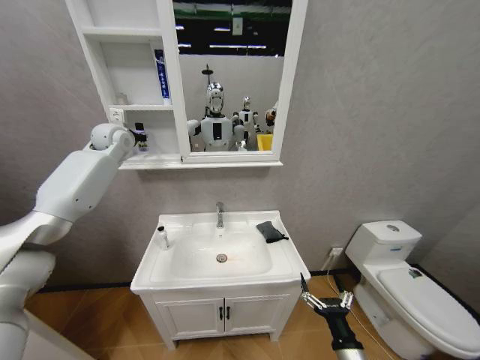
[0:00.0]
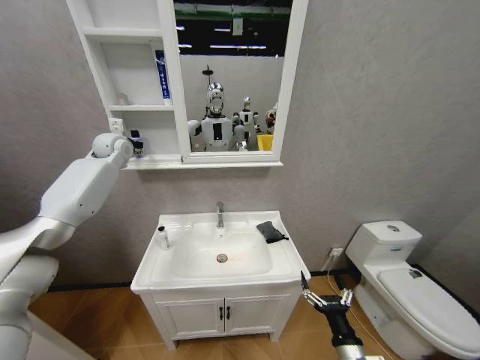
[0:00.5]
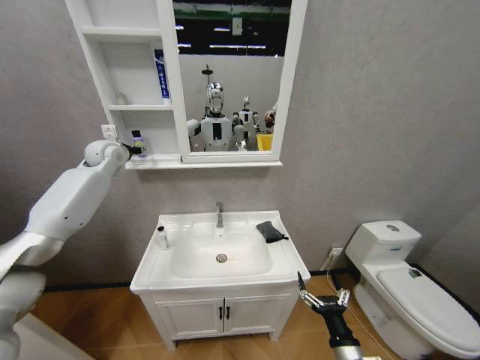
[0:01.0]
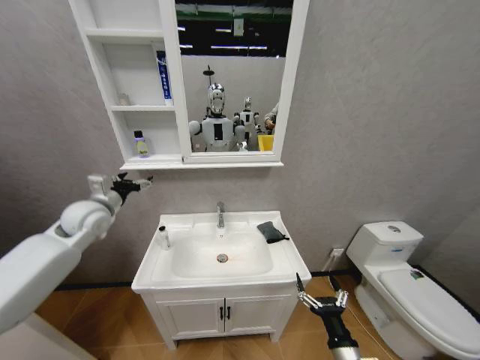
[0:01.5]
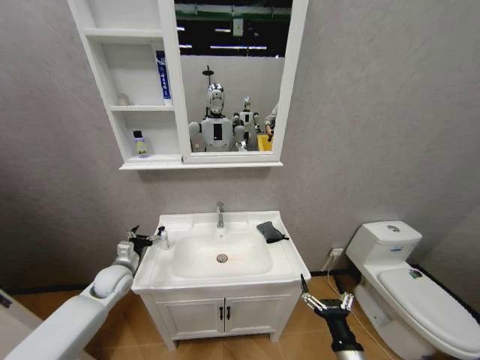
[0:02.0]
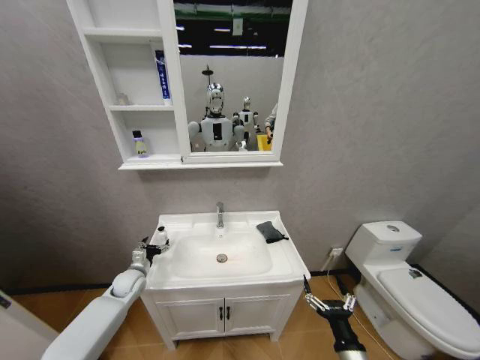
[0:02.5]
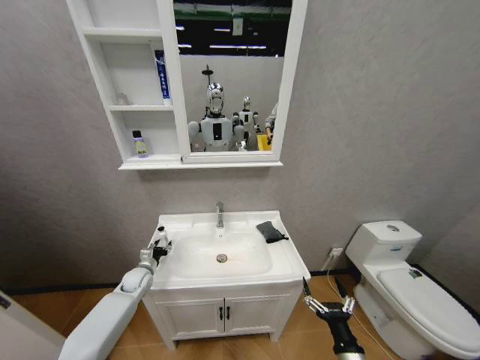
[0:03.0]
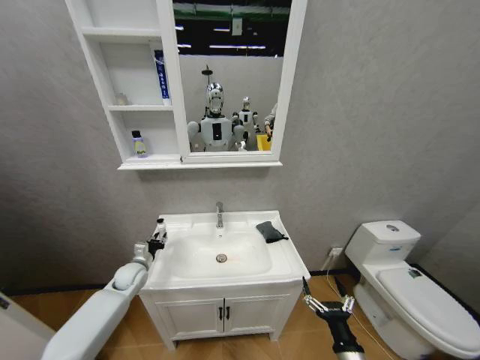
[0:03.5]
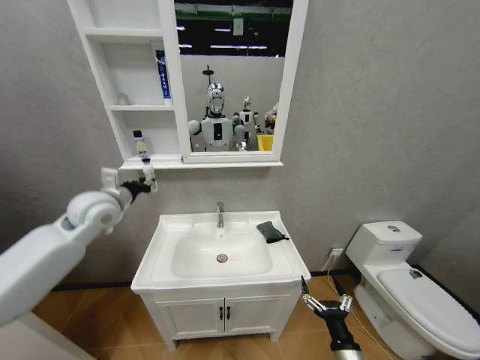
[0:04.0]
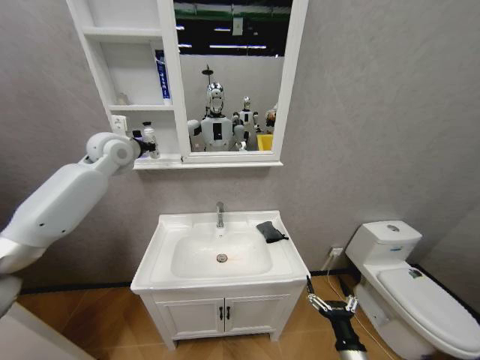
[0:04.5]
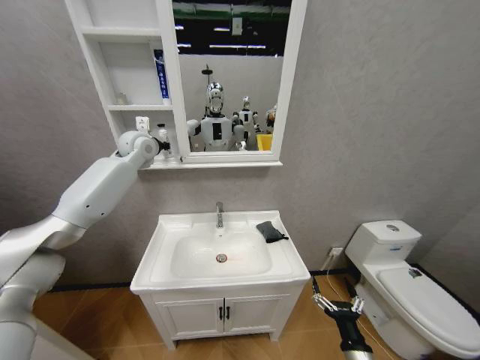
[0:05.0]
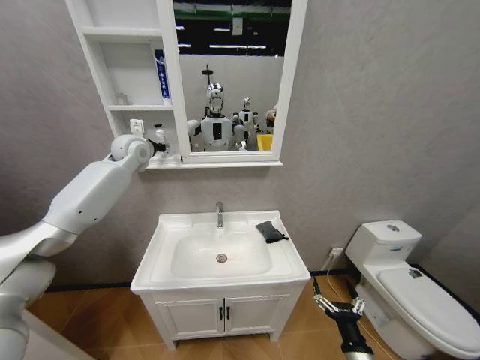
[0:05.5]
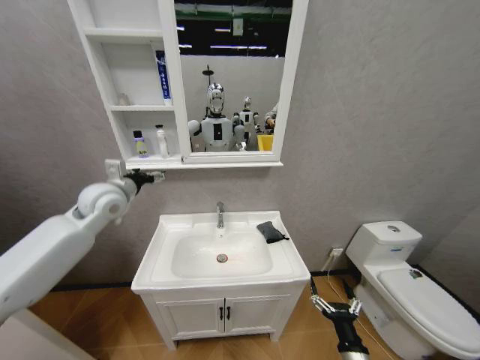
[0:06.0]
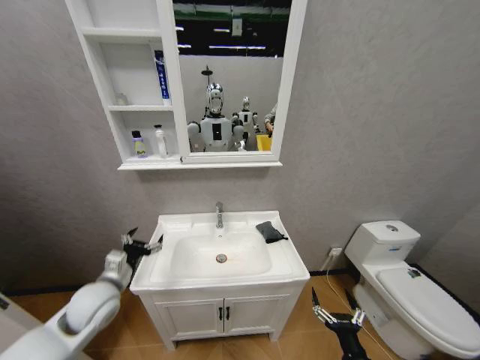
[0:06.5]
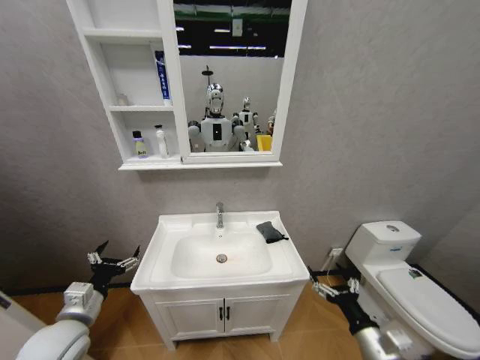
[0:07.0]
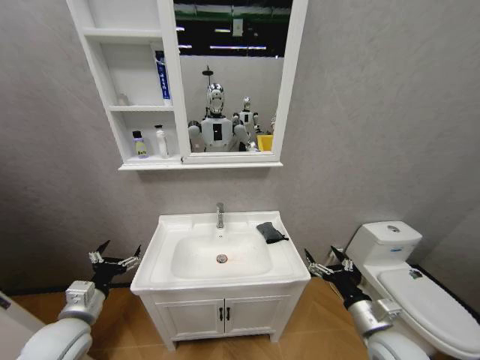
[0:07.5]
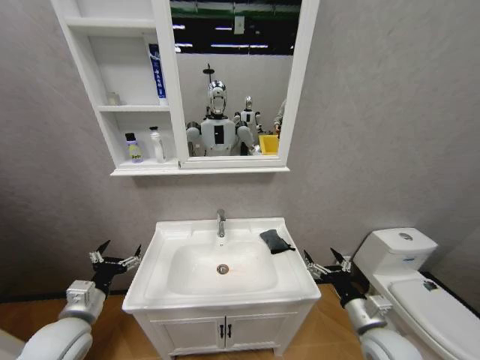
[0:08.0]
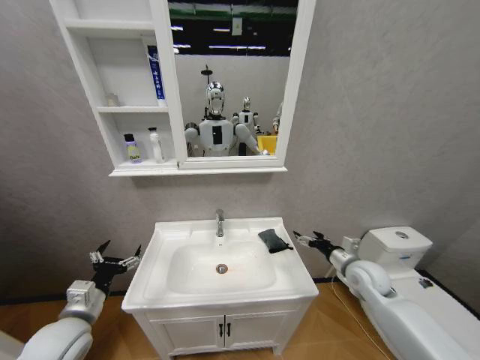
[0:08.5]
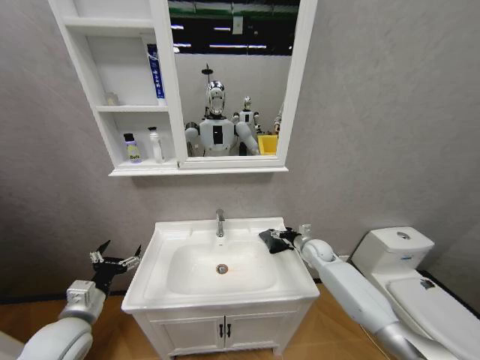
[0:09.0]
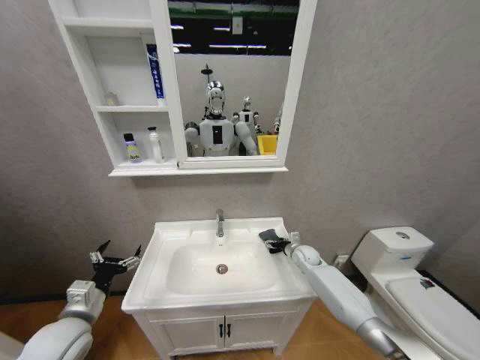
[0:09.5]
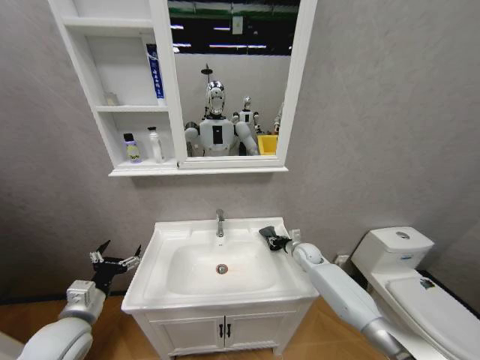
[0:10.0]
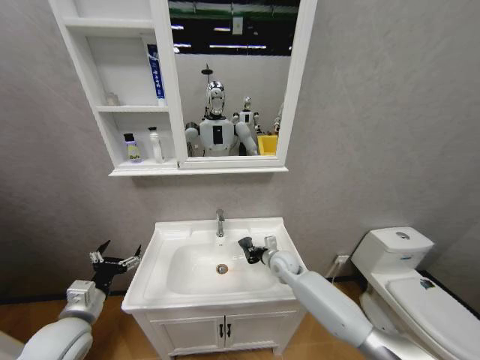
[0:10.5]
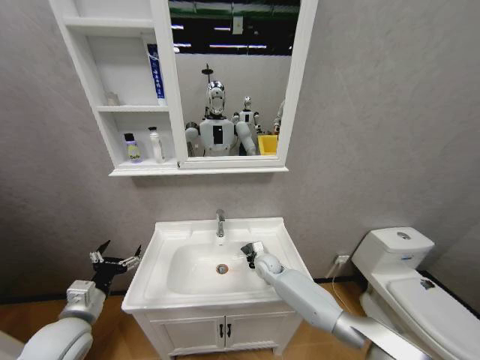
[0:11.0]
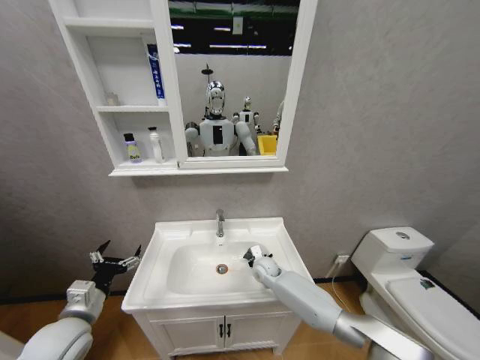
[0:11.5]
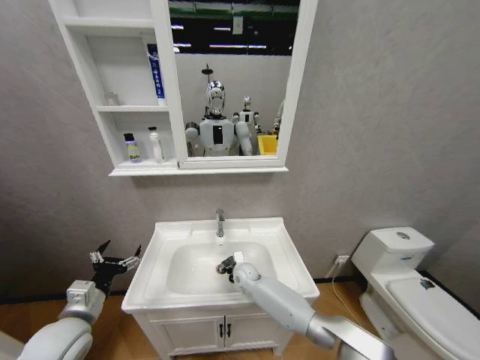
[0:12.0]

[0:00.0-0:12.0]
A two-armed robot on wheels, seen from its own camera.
Task of the whole recording: Move facial cleanser and shampoo from washbasin to cabinet, then wipe washbasin with towel.
0:00.0 to 0:02.0: The left gripper moves downward and backward, some 40 cm, and opens.
0:02.0 to 0:04.0: The left gripper moves upward, about 25 cm, and closes.
0:04.0 to 0:06.0: The left gripper travels forward and back again, roughly 20 cm each way, and opens.
0:06.0 to 0:08.0: The right gripper travels upward and forward by some 15 cm. The left gripper shifts roughly 30 cm backward and downward.
0:08.0 to 0:10.0: The right gripper moves forward, about 30 cm, and closes its fingers.
0:10.0 to 0:12.0: The right gripper is displaced to the left by some 25 cm, and closes its fingers.

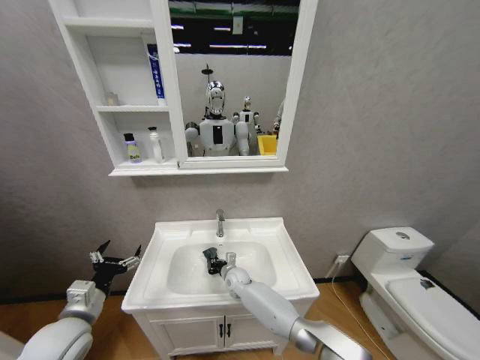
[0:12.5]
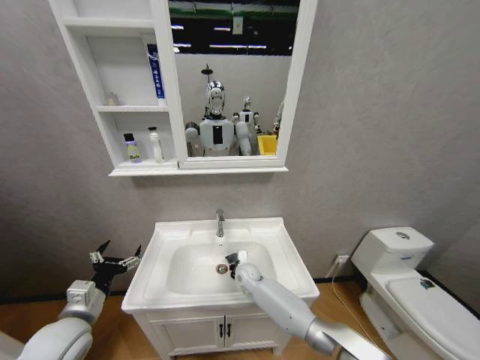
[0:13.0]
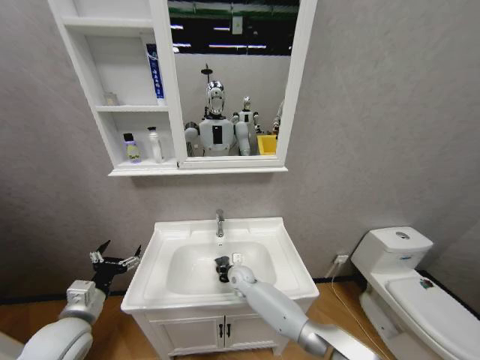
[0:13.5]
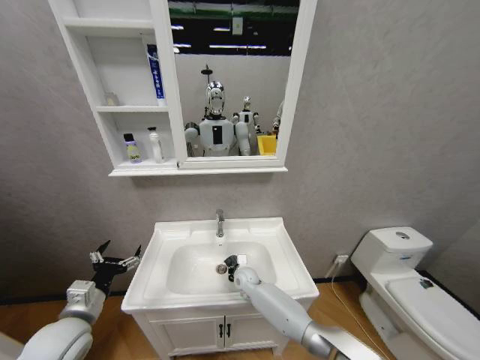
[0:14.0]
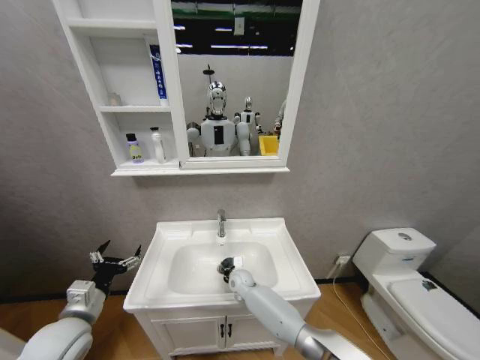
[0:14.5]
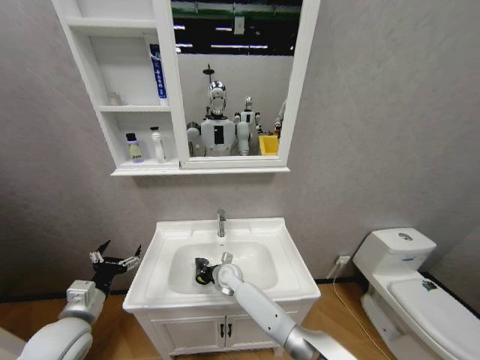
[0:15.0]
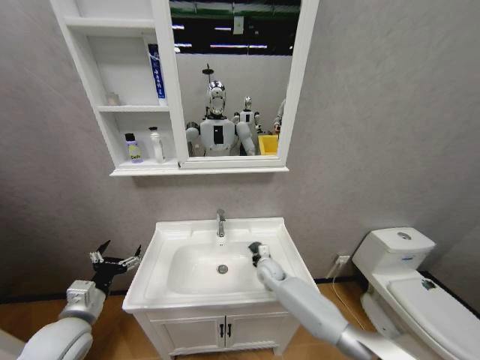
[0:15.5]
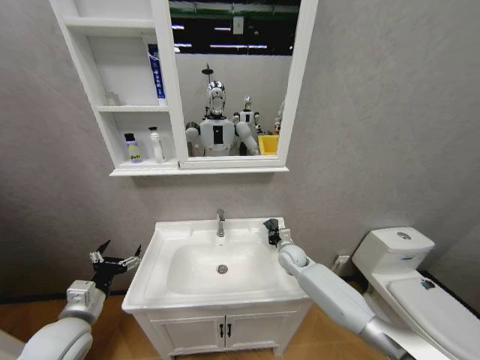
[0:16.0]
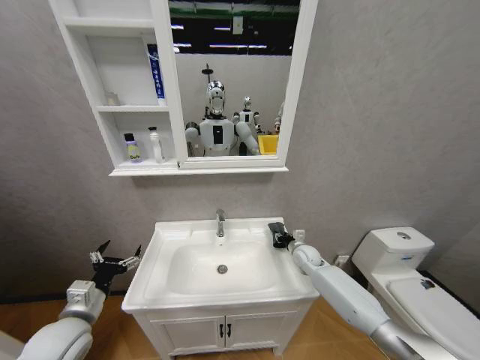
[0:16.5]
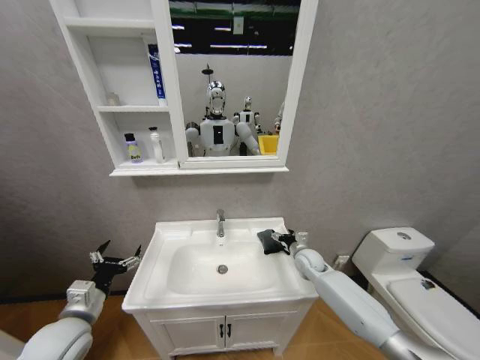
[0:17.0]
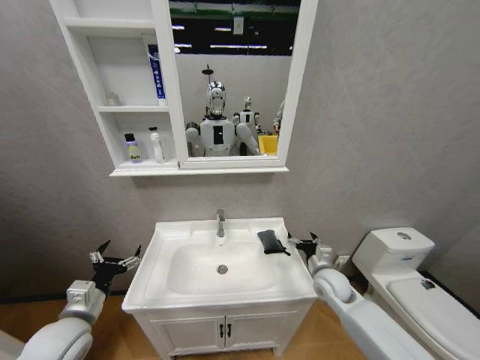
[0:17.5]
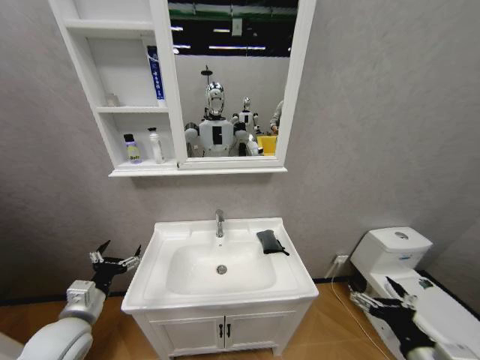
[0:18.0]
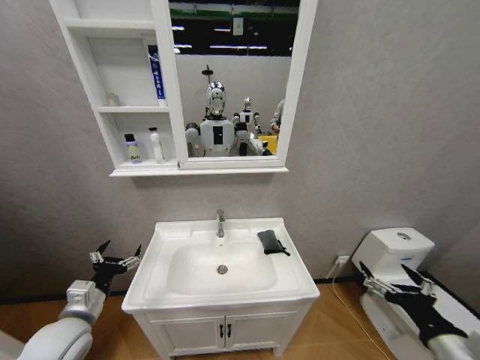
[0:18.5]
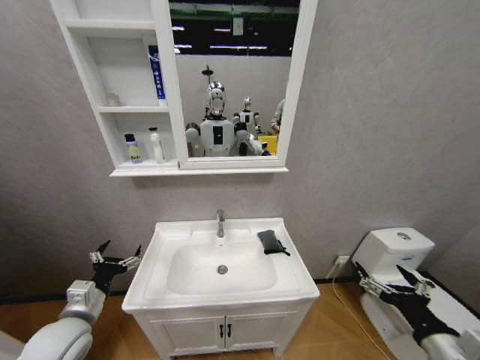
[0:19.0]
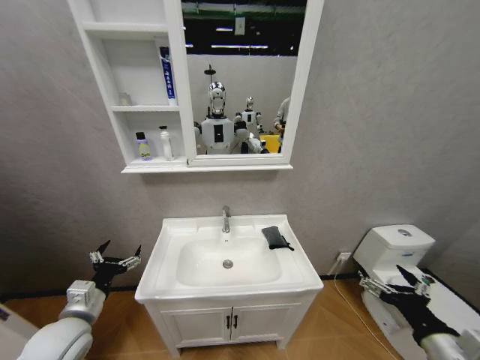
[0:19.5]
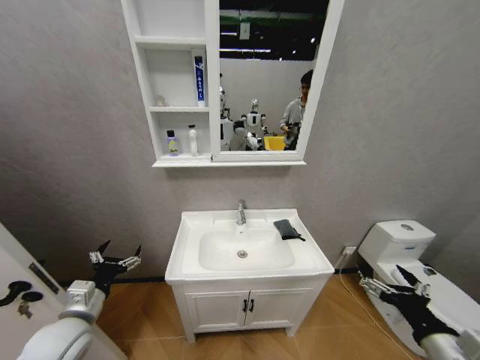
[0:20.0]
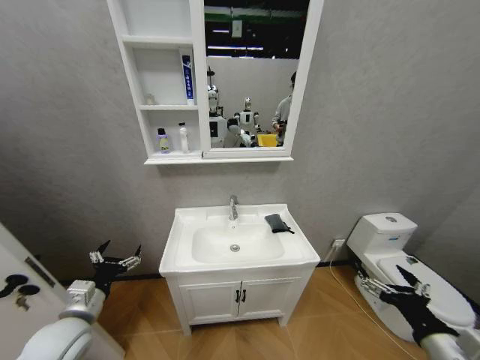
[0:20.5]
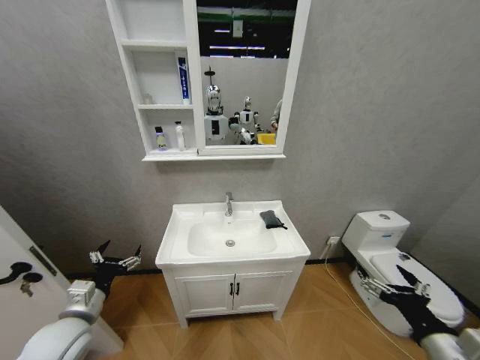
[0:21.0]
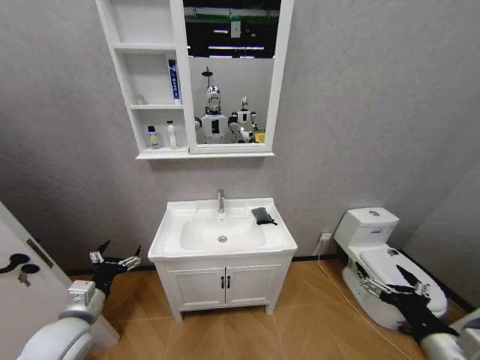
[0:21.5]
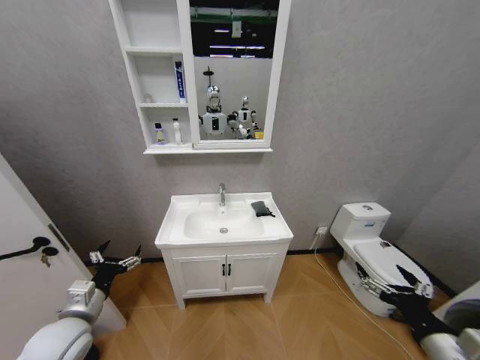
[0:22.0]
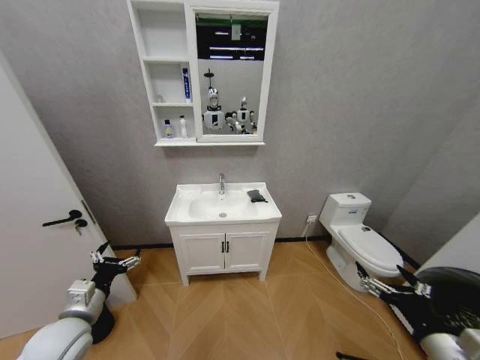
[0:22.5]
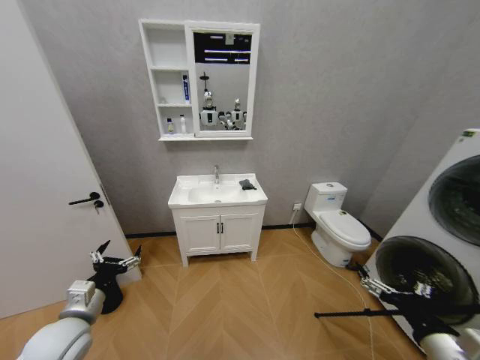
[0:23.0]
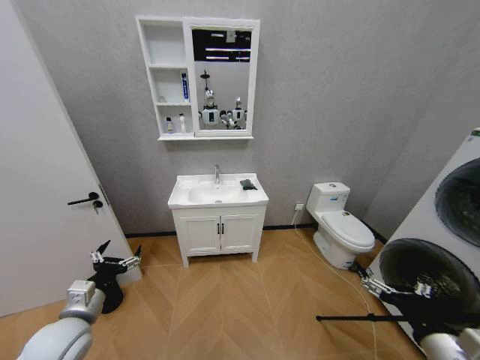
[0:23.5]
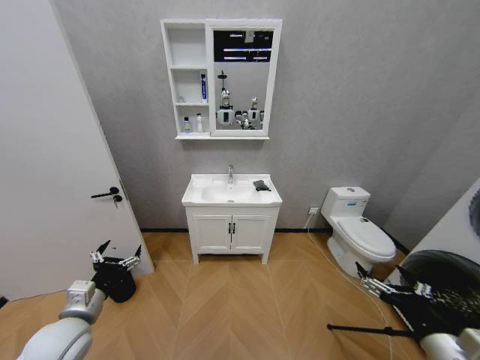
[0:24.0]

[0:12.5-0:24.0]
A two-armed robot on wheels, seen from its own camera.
Task of the whole recording: Move facial cleanser and shampoo from washbasin to cabinet, then wipe washbasin with towel.
0:14.5 to 0:16.5: The right gripper heads to the right, covering some 25 cm, and opens.
0:16.5 to 0:18.5: The right gripper is displaced backward and upward by about 40 cm, and opens up.

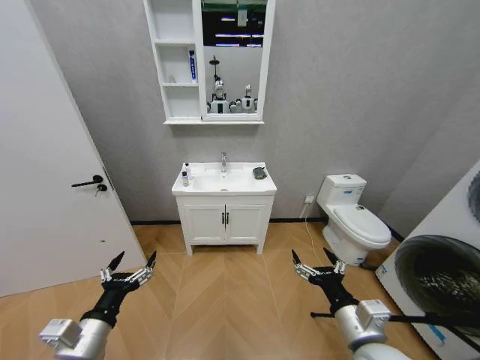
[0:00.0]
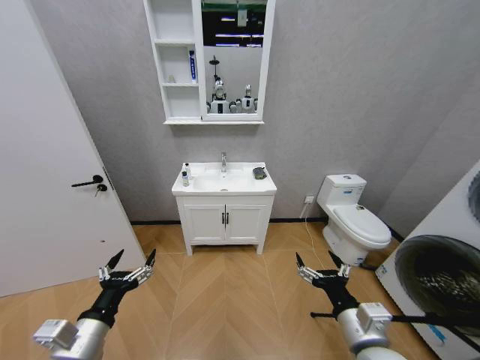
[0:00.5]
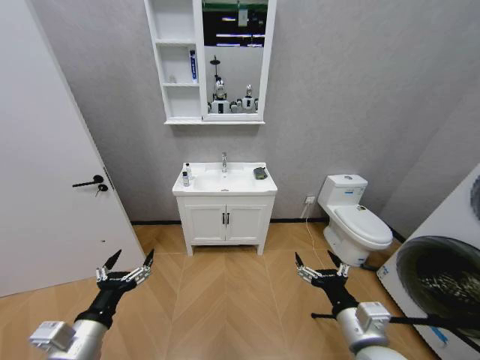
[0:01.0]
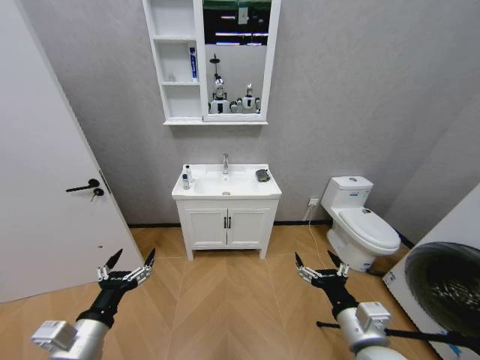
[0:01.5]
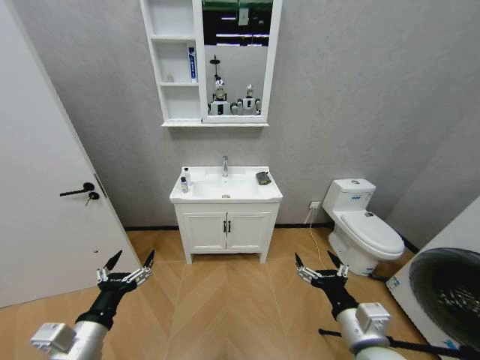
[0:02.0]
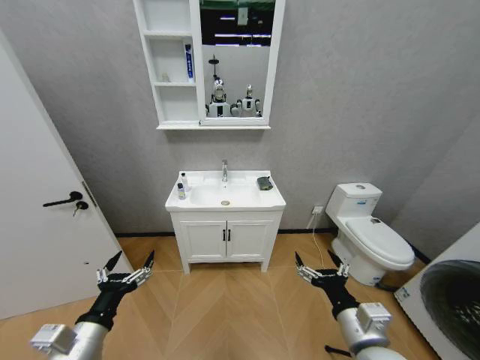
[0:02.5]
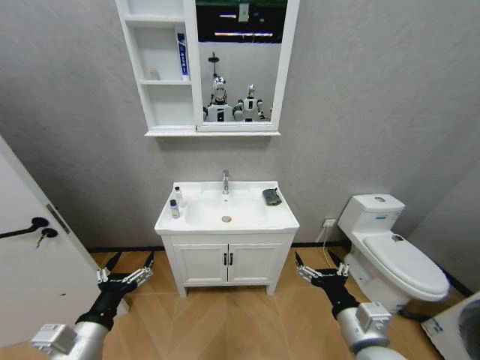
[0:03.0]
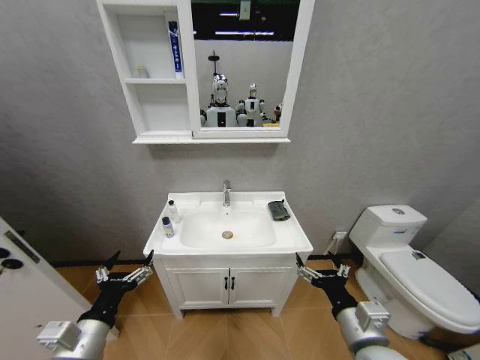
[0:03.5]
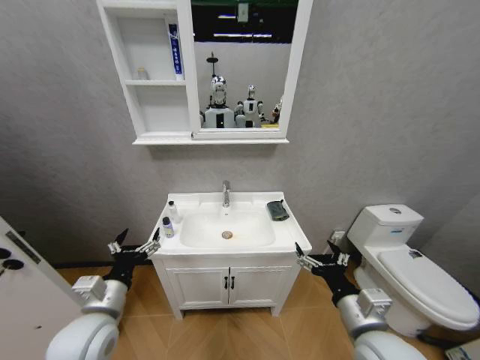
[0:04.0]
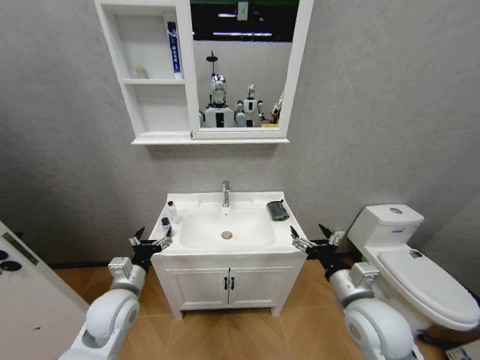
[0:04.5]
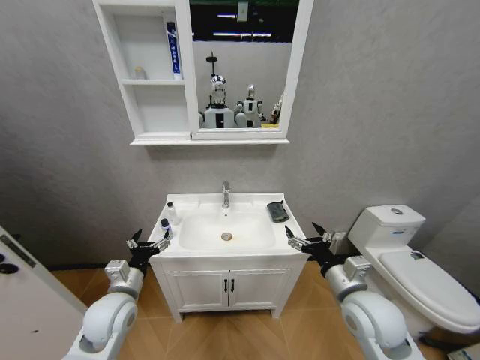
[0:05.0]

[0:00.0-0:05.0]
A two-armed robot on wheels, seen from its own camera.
Task of the whole recording: Move facial cleanser and shampoo from washbasin to cabinet, then wipe washbasin with towel.
0:02.5 to 0:05.0: Both grippers travel together forward, about 10 cm.
